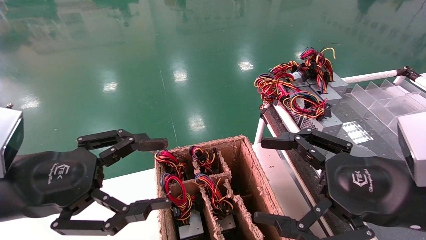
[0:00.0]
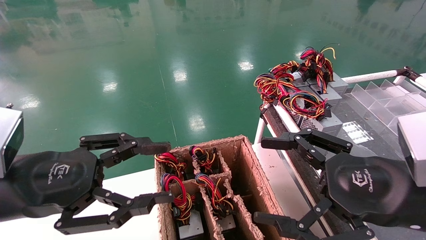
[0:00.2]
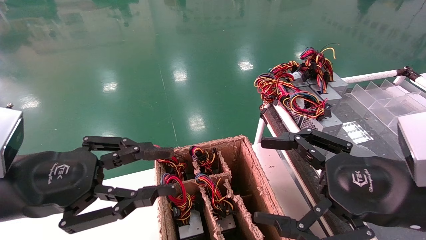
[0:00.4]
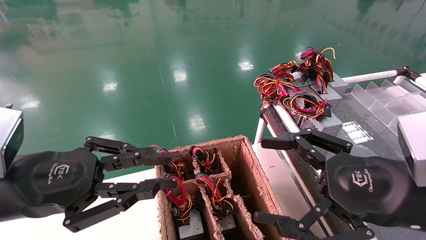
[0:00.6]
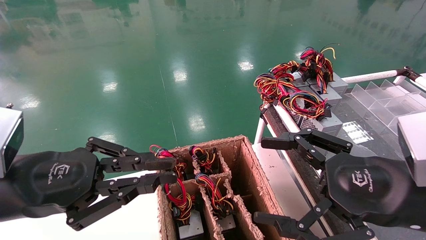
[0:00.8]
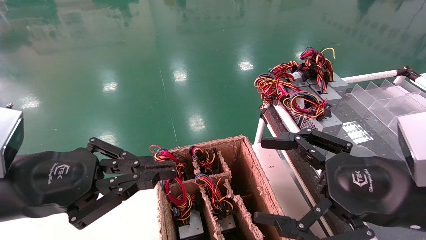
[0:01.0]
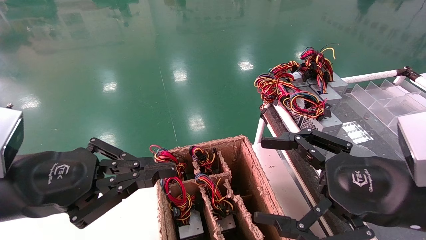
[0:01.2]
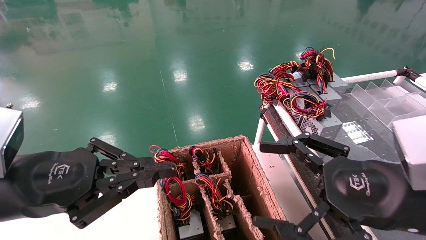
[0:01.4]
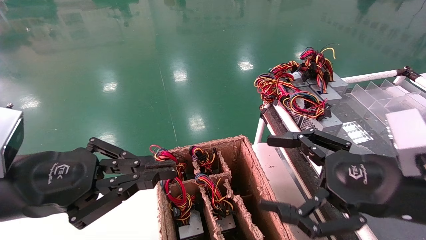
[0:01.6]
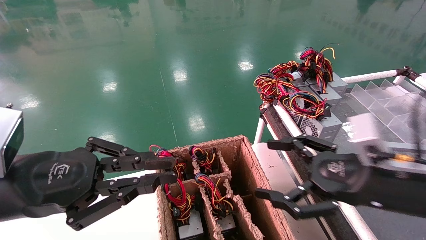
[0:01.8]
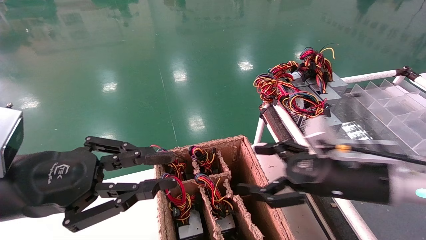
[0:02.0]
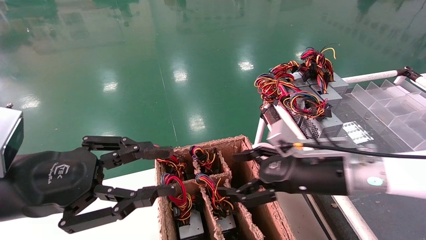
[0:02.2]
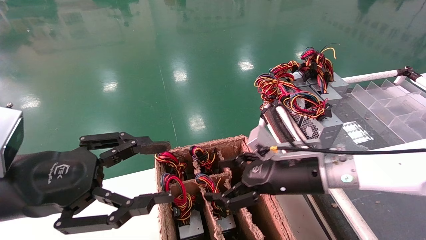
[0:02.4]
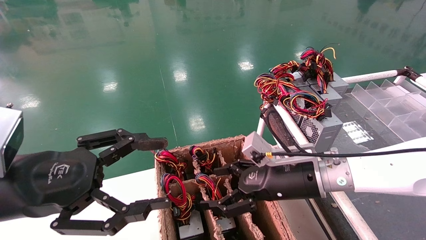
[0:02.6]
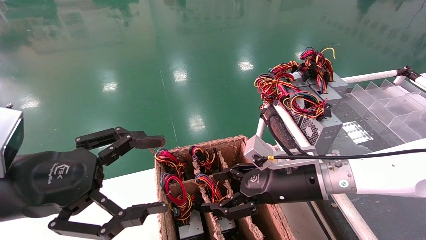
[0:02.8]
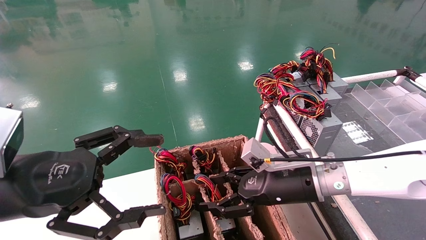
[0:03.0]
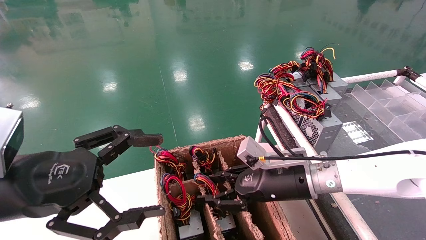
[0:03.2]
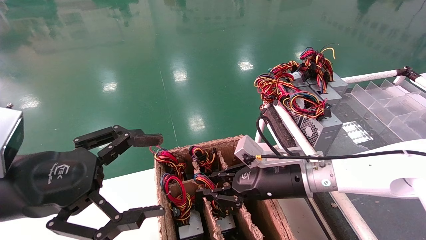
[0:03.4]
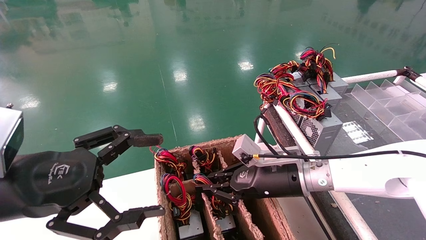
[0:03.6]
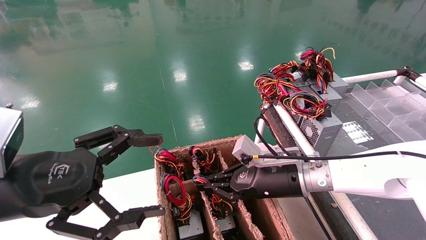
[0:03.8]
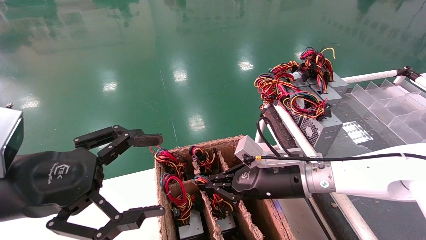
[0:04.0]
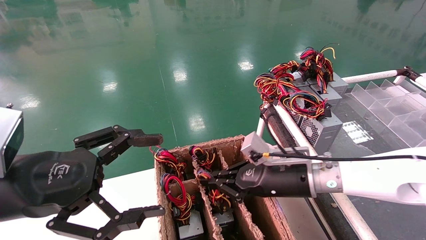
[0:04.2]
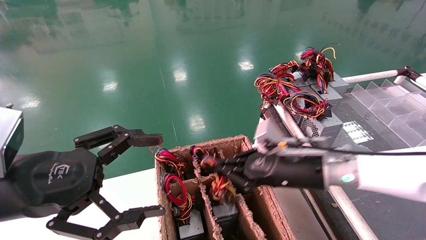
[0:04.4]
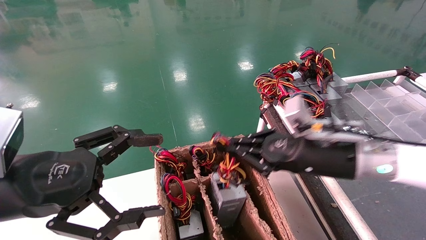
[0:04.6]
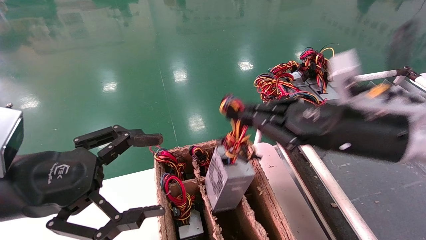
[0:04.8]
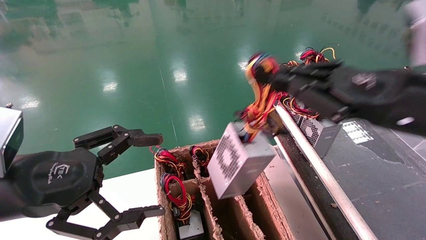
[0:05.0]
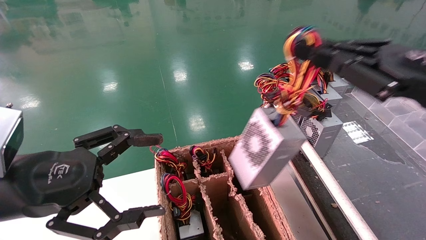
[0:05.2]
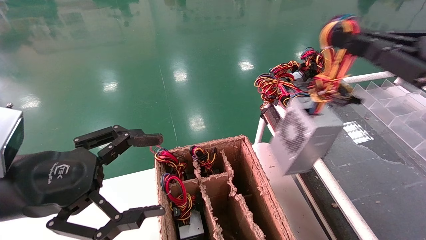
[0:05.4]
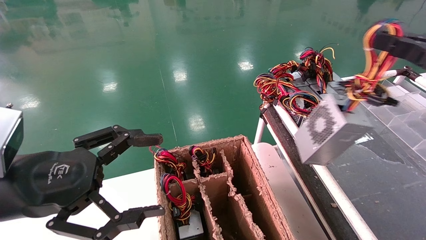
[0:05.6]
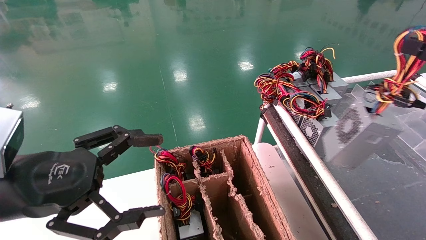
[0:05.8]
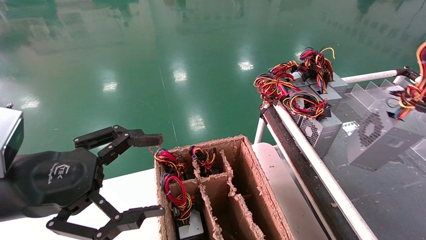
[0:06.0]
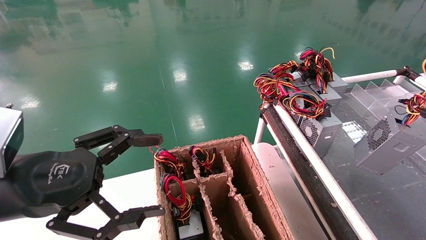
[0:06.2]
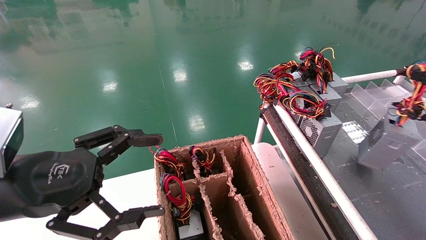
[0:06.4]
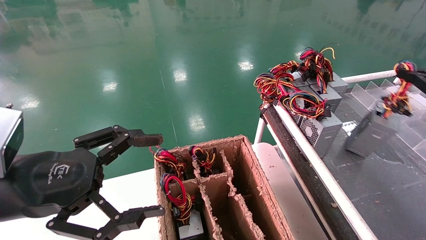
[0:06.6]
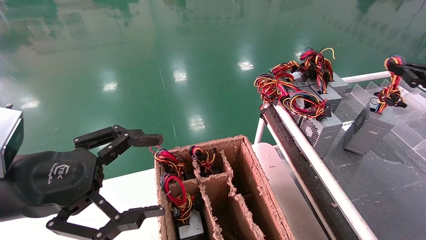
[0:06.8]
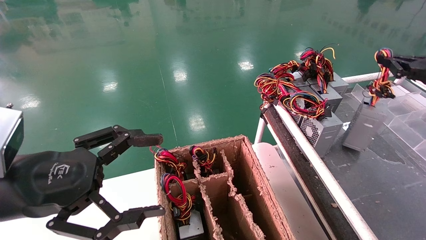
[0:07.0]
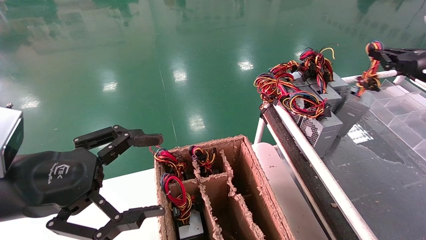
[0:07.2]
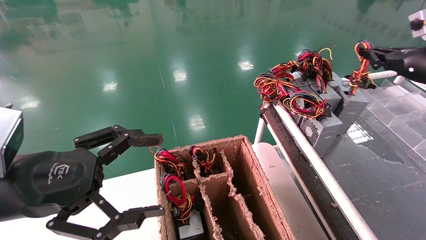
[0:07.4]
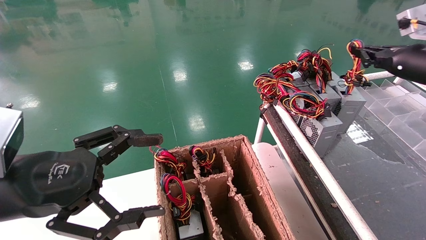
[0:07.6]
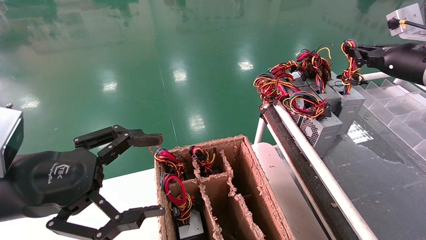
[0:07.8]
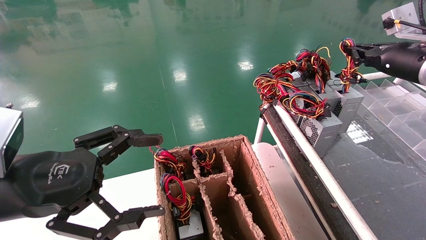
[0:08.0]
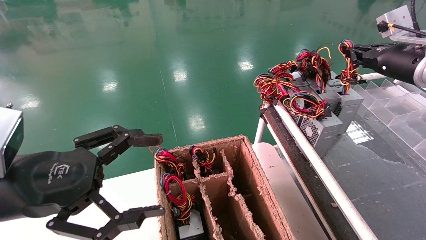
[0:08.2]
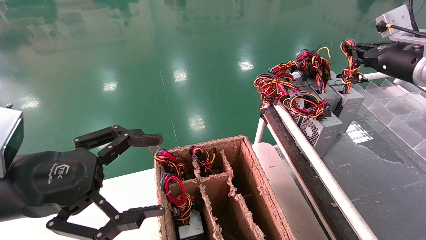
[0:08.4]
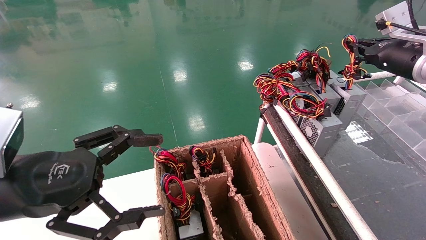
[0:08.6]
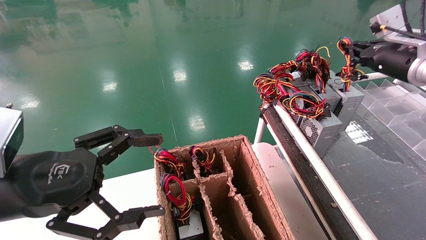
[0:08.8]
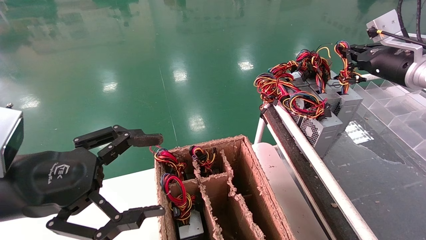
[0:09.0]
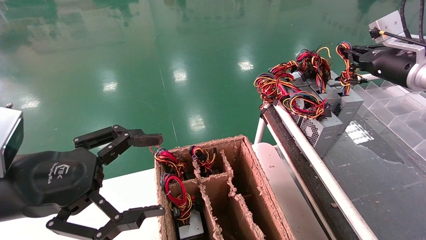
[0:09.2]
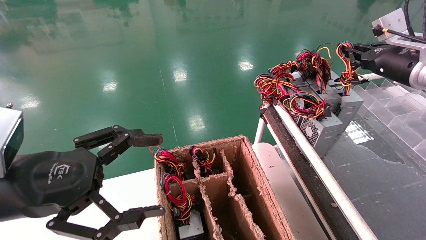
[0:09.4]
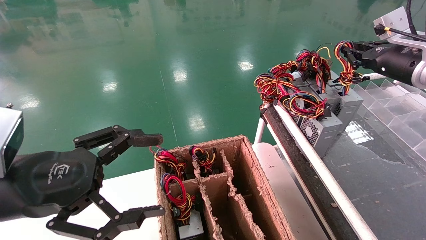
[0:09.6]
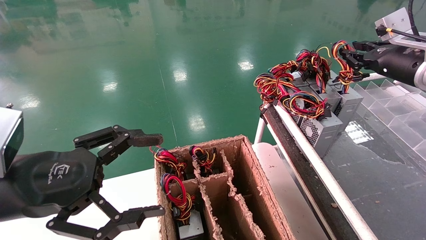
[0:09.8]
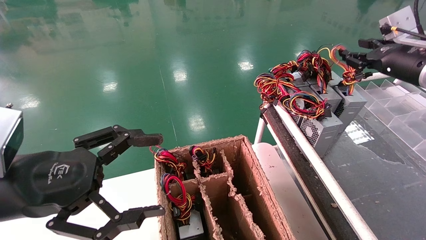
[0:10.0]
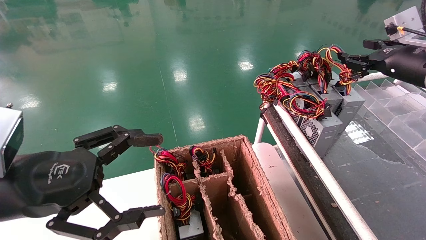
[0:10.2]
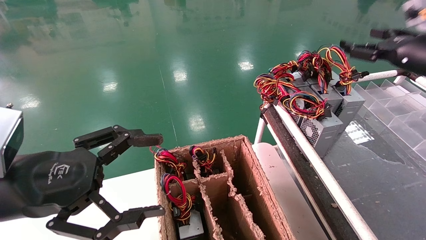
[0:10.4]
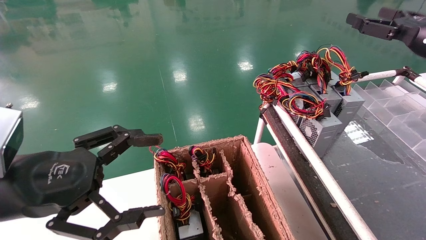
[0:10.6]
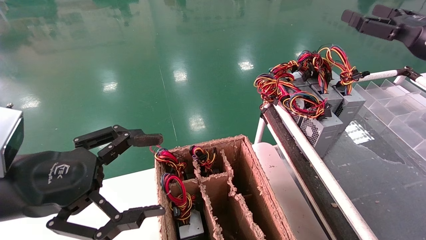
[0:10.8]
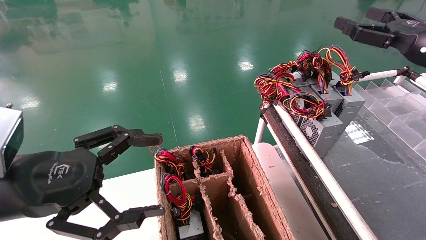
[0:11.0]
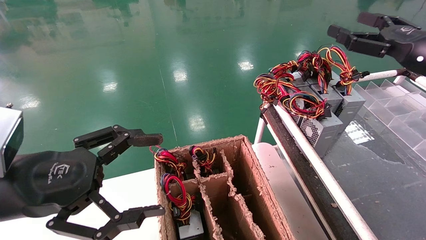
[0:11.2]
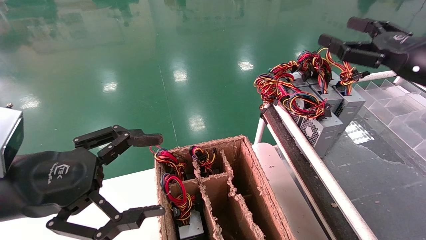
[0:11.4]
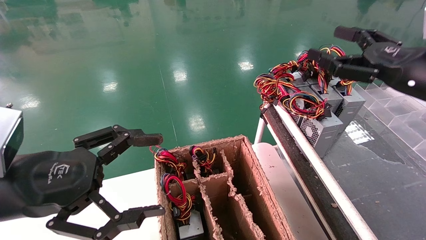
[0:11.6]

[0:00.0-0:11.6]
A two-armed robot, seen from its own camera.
Step, 0:01.2 to 0:04.2: Grab and lift the power supply from the large box.
Step, 0:04.4 to 0:09.4: Place the power supply on the operating table.
0:00.0 to 0:01.4: The left gripper closes its fingers.
0:01.4 to 0:02.8: The right gripper moves forward, to the left and downward, about 20 cm. The left gripper opens its fingers.
0:02.8 to 0:04.4: The right gripper closes up.
0:04.4 to 0:05.8: The right gripper shifts some 35 cm to the right, upward and backward.
0:05.8 to 0:07.2: The right gripper shifts approximately 15 cm forward.
0:07.2 to 0:08.8: The right gripper travels to the left by approximately 5 cm.
0:08.8 to 0:10.2: The right gripper opens.
0:10.2 to 0:11.6: The right gripper moves backward and to the left, approximately 10 cm, and opens its fingers.
